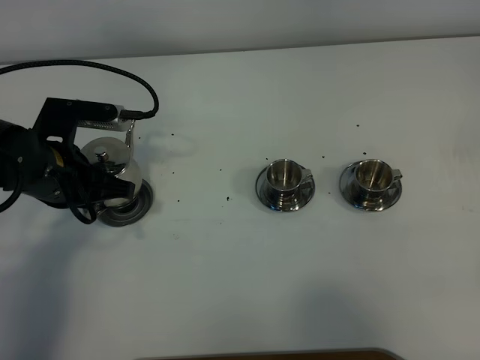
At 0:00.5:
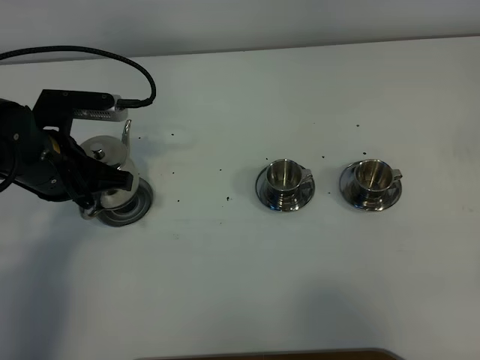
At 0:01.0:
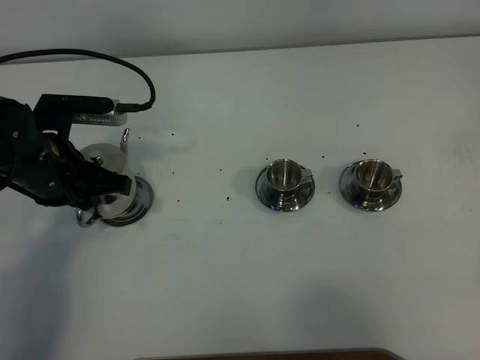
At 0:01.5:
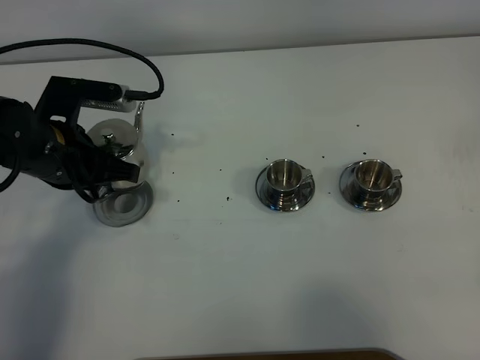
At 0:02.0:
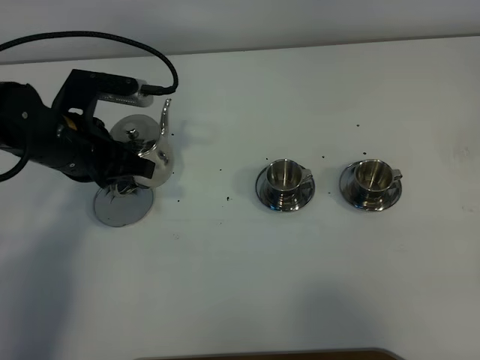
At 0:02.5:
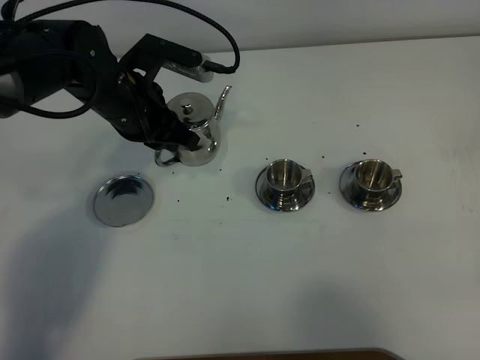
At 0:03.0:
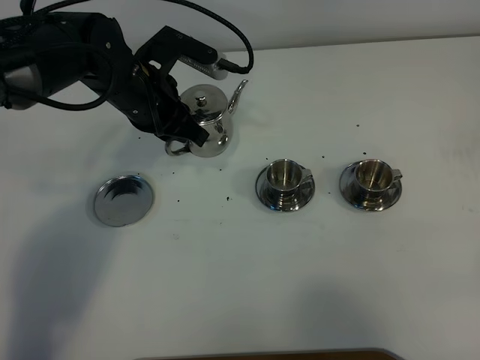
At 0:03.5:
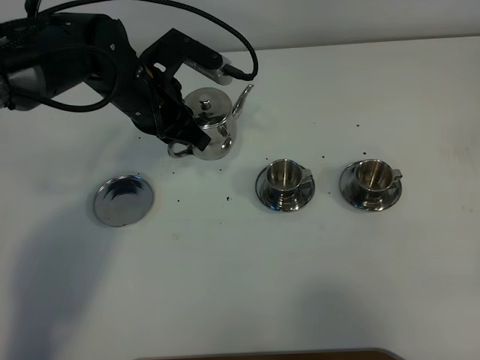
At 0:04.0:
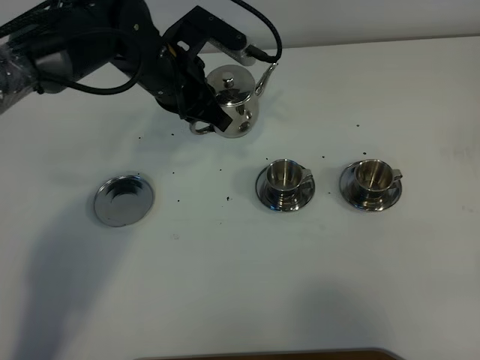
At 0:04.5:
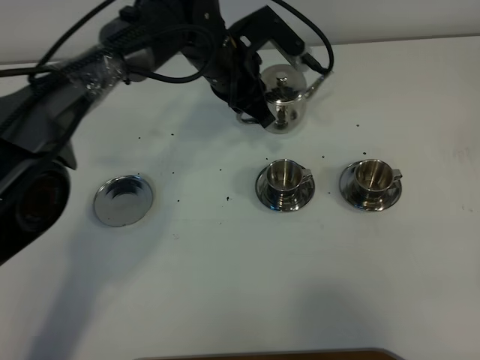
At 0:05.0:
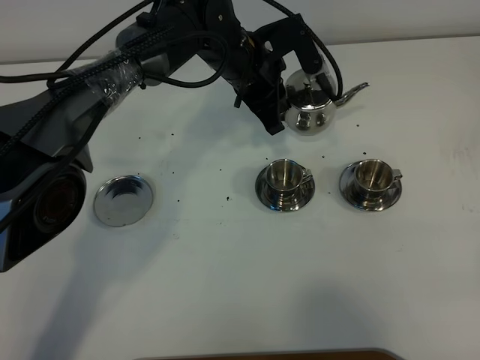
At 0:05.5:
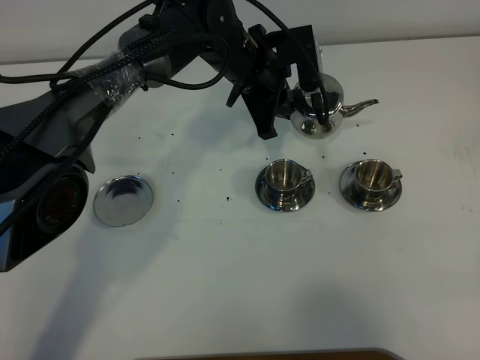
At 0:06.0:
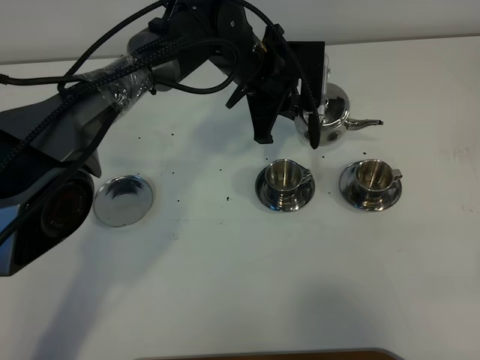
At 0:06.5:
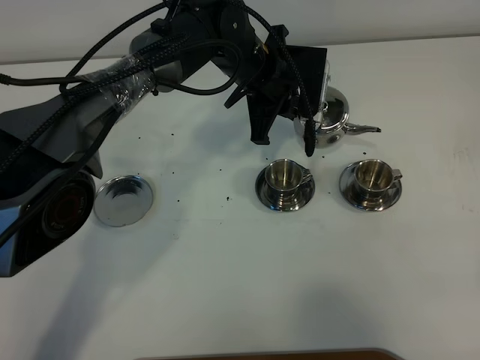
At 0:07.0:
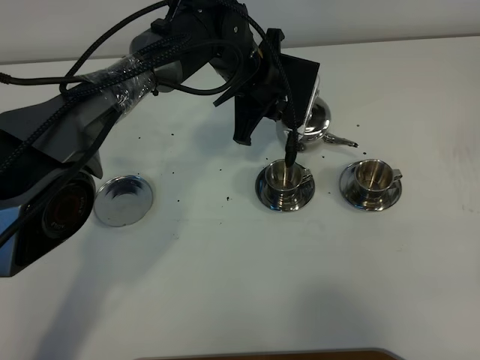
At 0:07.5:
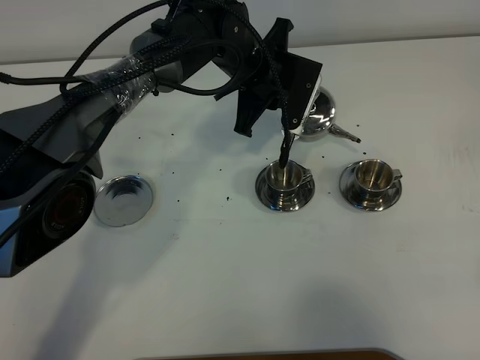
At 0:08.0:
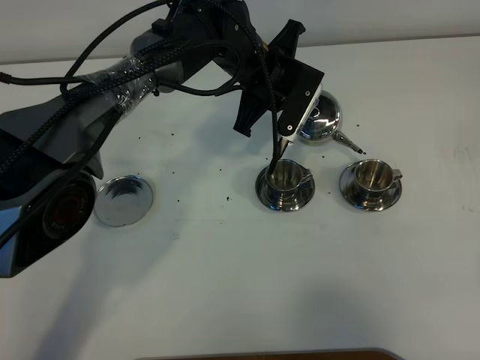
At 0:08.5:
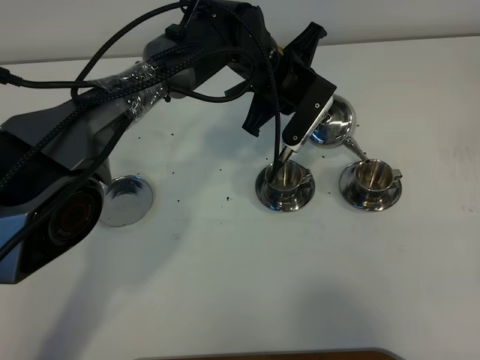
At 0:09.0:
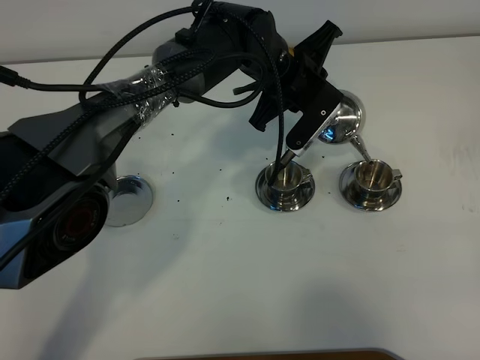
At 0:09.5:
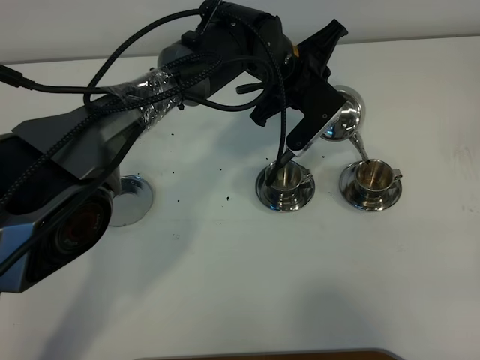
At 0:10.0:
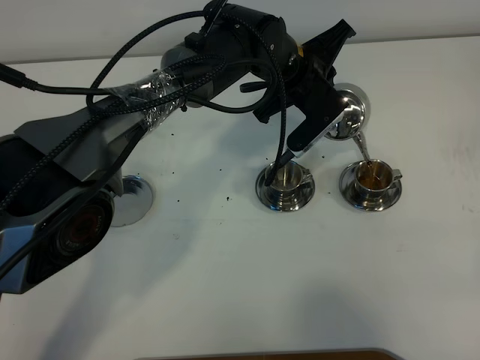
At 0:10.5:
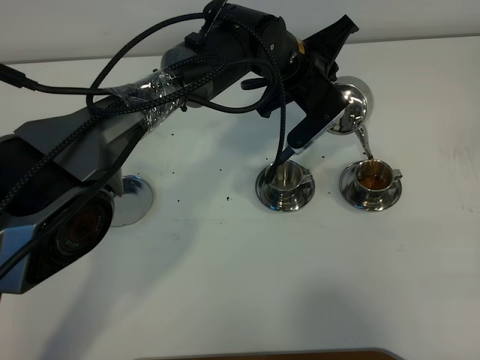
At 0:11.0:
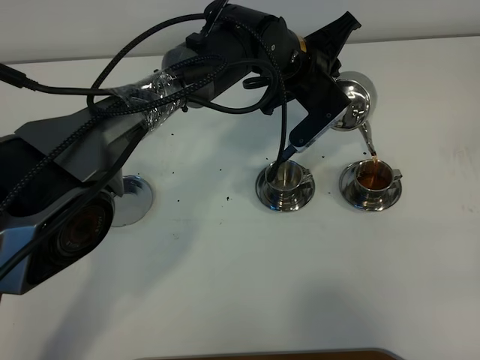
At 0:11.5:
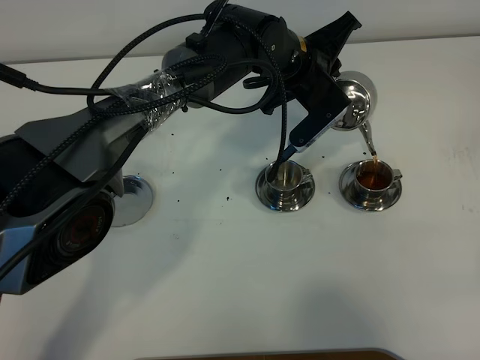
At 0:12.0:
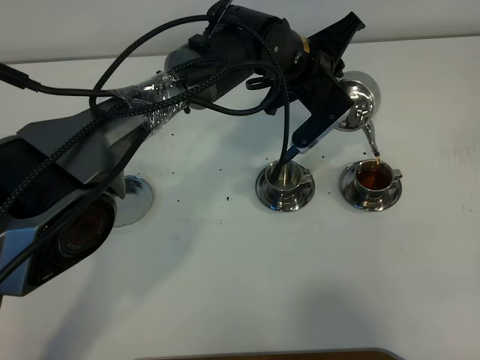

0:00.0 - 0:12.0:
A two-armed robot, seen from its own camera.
Task of the whole recording: grasp the stainless steel teapot and pour the tea into the two stainless steel teacups one by one, put the stainless steel teapot back in its original place.
0:00.0 - 0:02.0: There are only small adjustments of the grippers.
0:02.0 - 0:04.0: The left gripper is displaced to the right and forward by about 15 cm.
0:04.0 - 0:06.0: The left gripper heads to the right, covering roughly 10 cm.
0:10.0 - 0:12.0: The grippers stay close to where they were, moving slightly.

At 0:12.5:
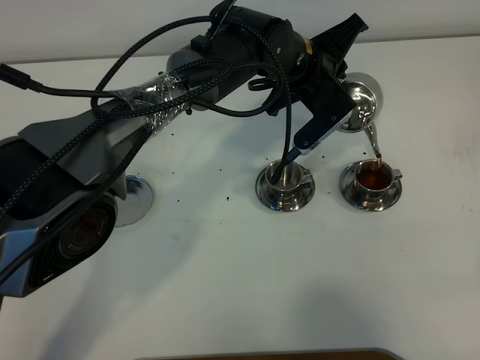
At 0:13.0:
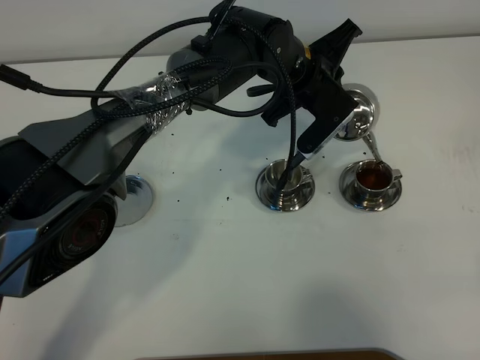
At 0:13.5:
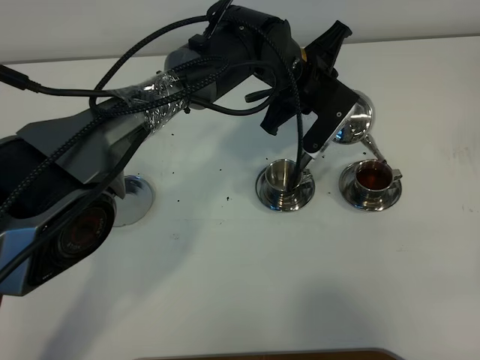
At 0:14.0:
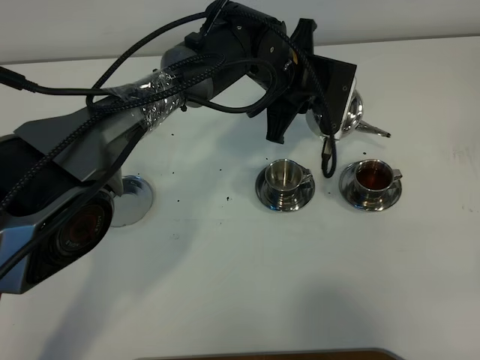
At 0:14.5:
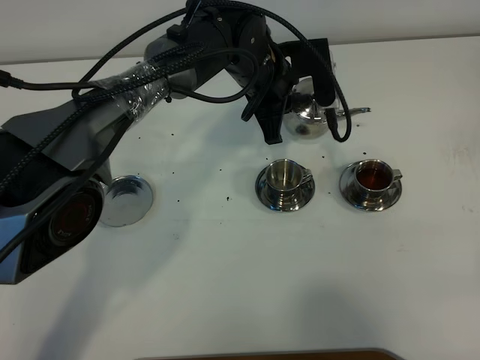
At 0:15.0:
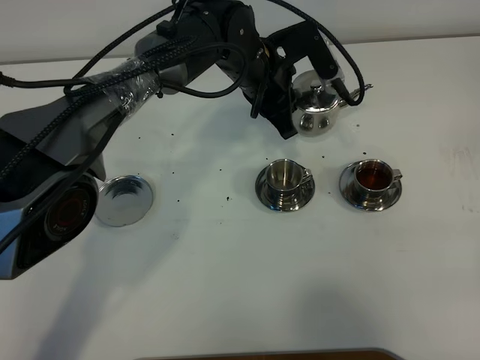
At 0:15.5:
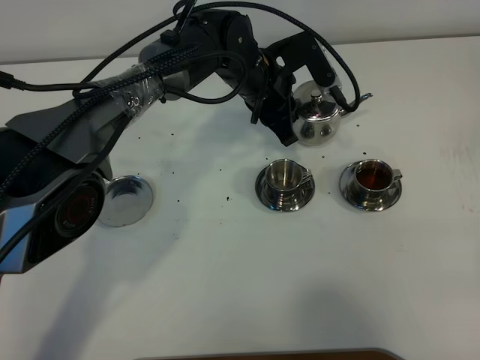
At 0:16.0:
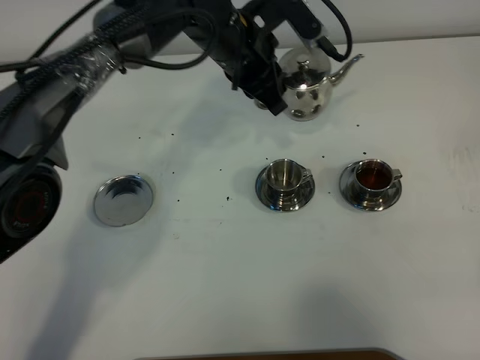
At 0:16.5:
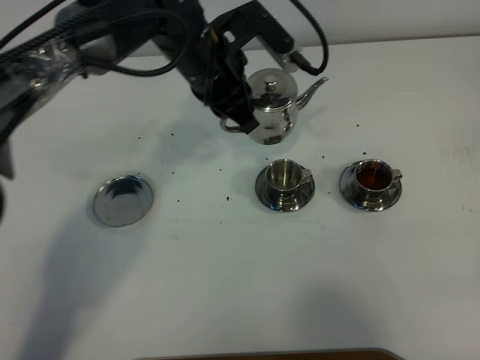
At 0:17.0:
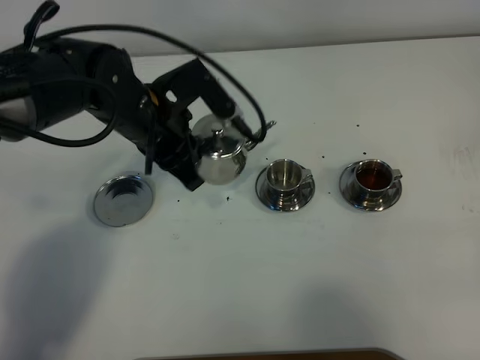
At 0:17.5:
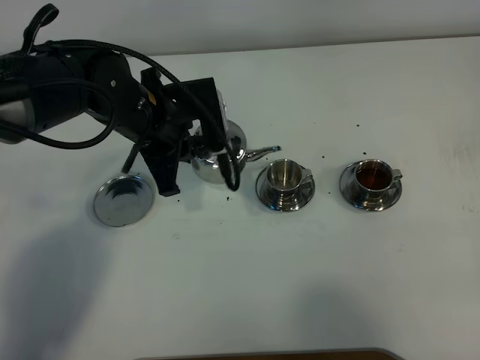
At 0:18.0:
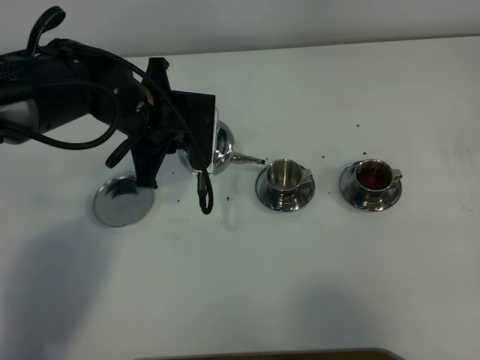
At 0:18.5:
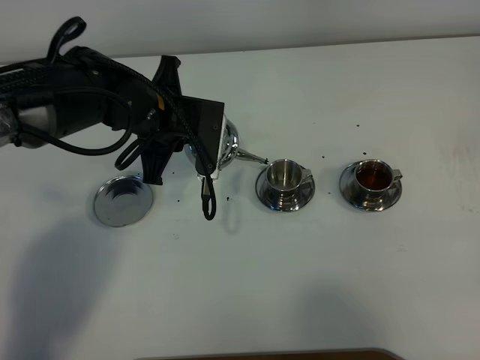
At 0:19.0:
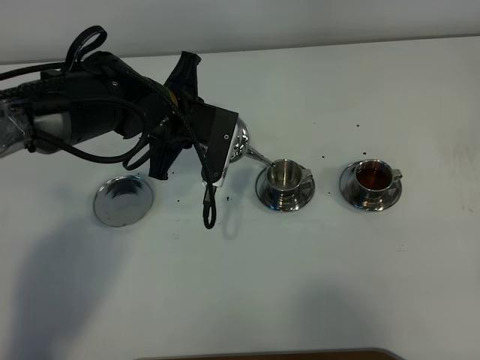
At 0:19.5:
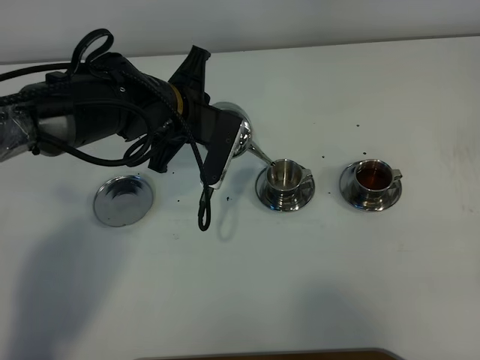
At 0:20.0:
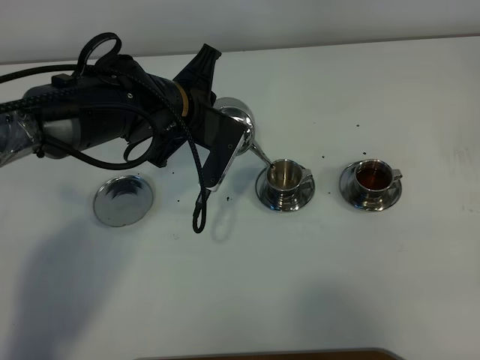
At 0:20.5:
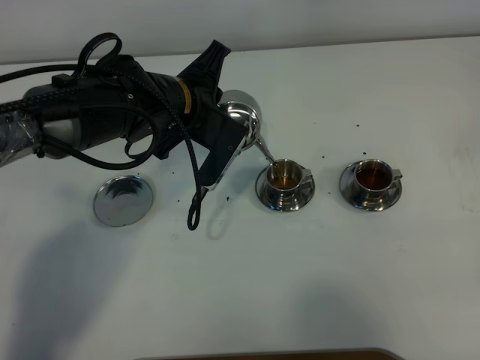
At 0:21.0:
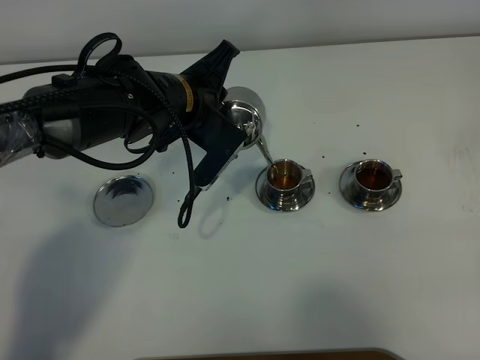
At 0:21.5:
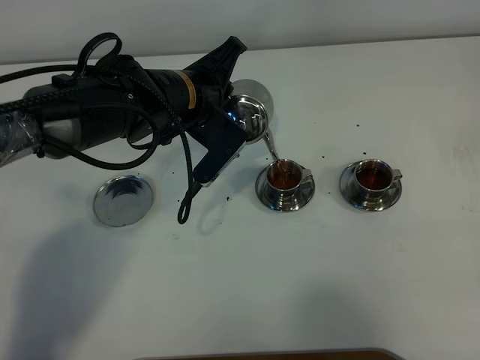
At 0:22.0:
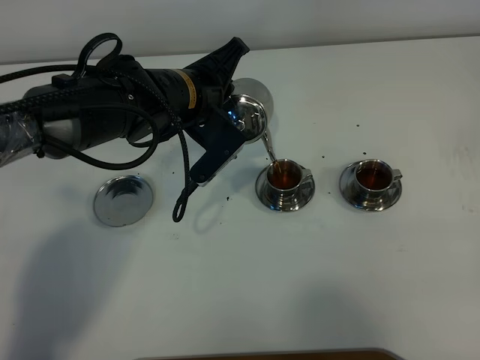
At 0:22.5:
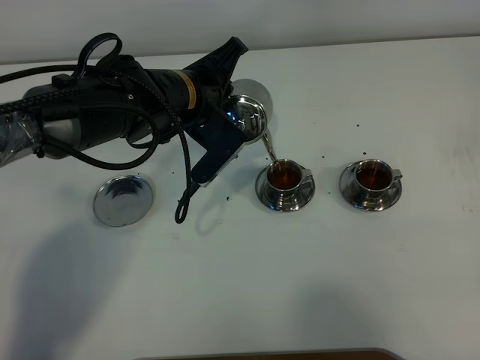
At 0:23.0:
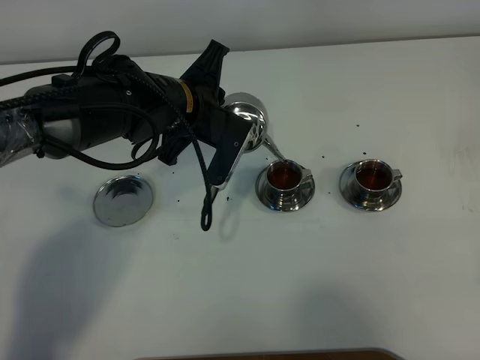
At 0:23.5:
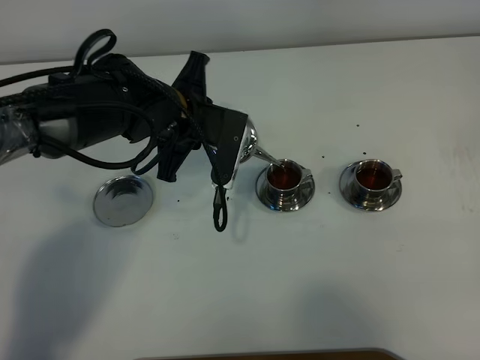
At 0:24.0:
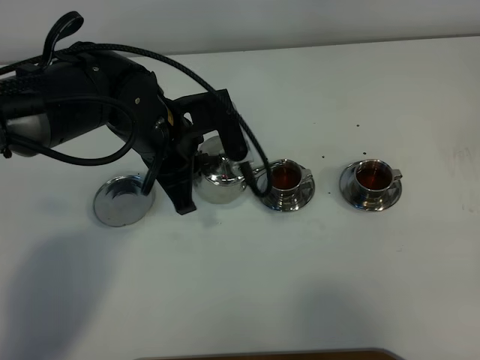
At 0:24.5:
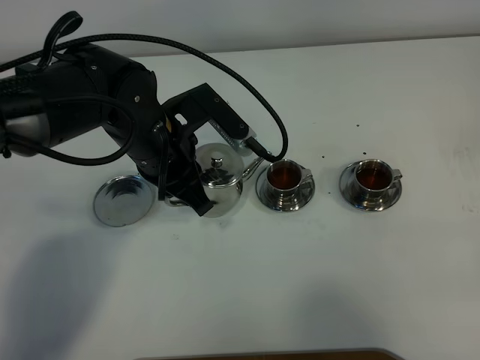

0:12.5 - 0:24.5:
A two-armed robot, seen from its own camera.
Task of the whole recording: grasp the stainless steel teapot and pour the tea into the two stainless steel teacups one by one, put the stainless steel teapot back in its original place.
Step, 0:14.0 - 0:23.0: Pour tea into the teacup with the left gripper.
0:12.5 - 0:14.5: The left gripper shifts by about 5 cm.
0:14.5 - 0:16.5: The left gripper travels to the left by about 5 cm.
0:16.5 - 0:18.5: The left gripper shifts approximately 5 cm to the left.
0:20.5 - 0:22.5: The grippers make only small movements.
0:22.5 - 0:24.5: The left gripper heads backward, covering roughly 5 cm.

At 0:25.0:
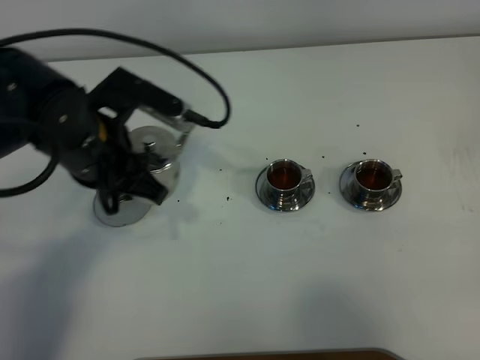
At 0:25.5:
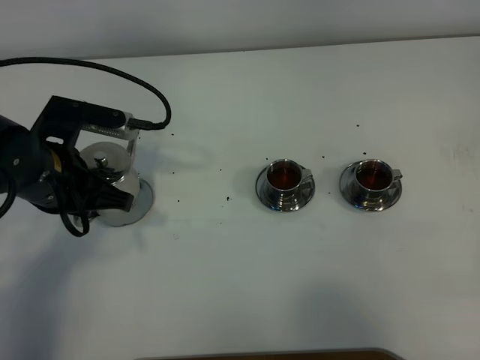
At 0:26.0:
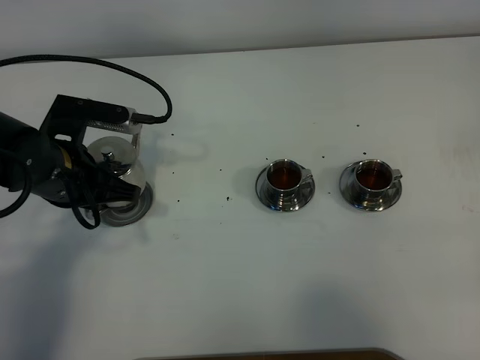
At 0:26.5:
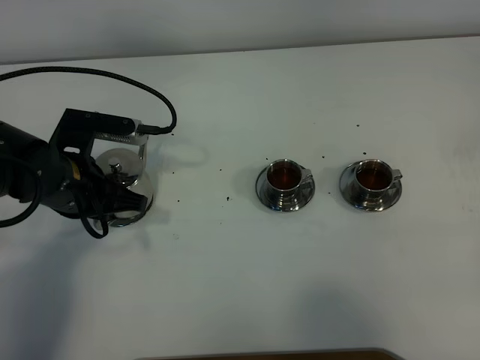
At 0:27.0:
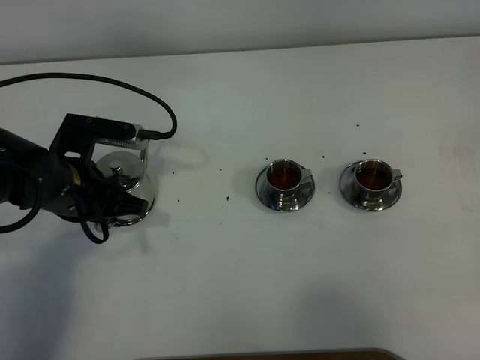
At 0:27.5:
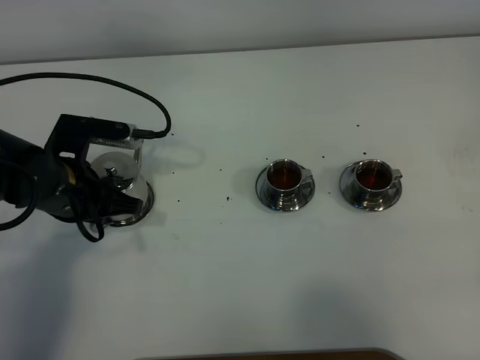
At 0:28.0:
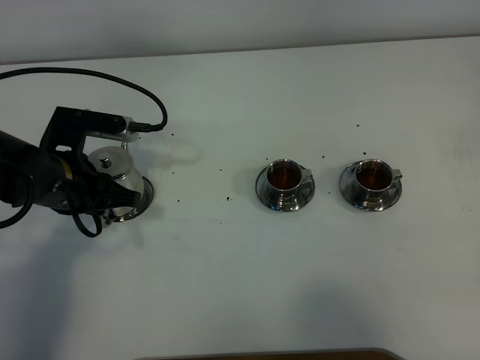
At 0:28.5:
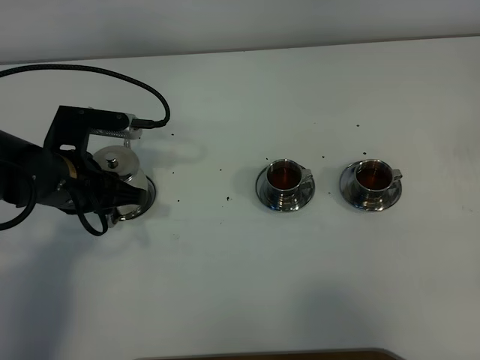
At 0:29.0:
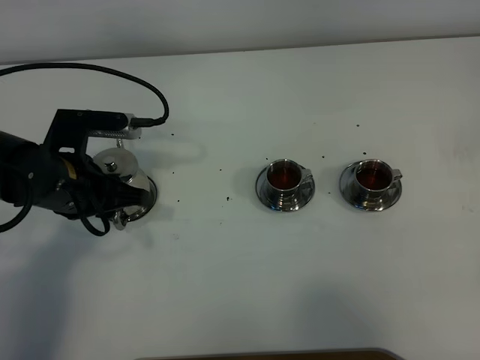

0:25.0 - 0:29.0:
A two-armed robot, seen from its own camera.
Task of the whole recording: grasp the stainless steel teapot and pour the tea into the two stainless steel teacups one by one, put the stainless steel teapot back in its original place.
0:25.0 - 0:27.0: The left gripper moves downward, approximately 5 cm.
0:27.0 - 0:29.0: The left gripper opens its fingers.
